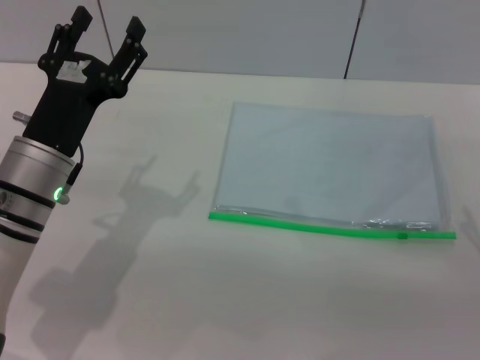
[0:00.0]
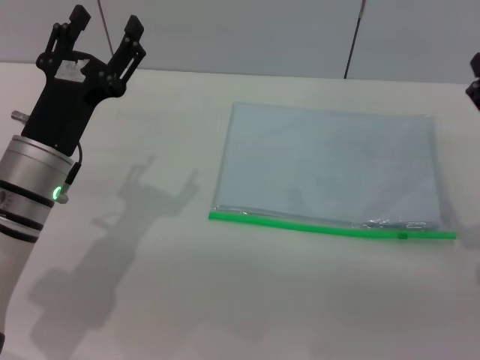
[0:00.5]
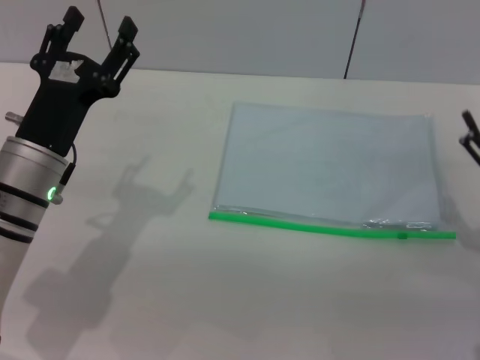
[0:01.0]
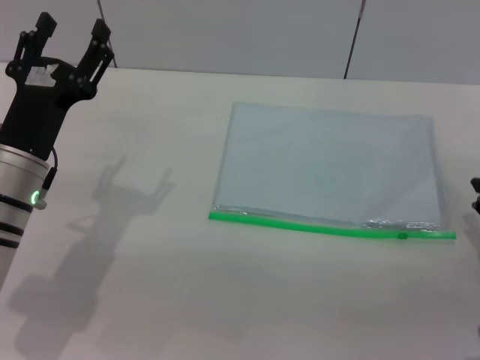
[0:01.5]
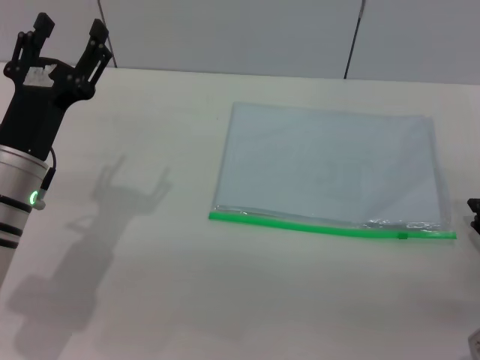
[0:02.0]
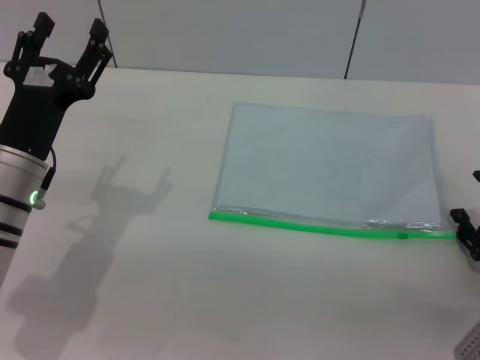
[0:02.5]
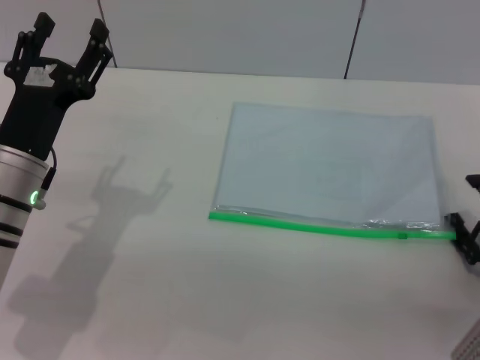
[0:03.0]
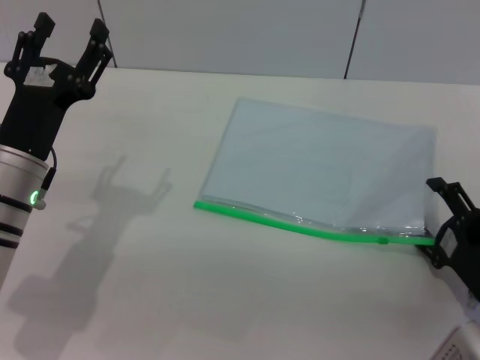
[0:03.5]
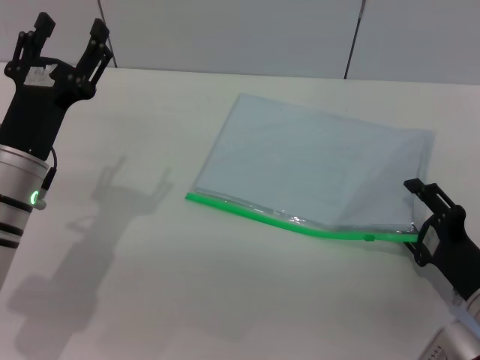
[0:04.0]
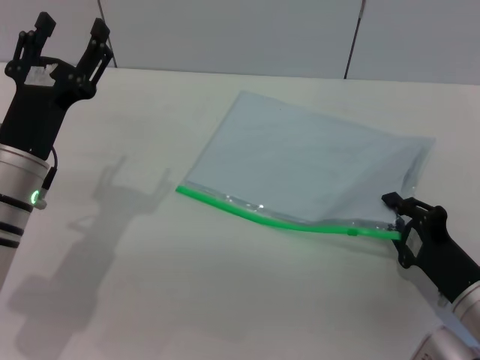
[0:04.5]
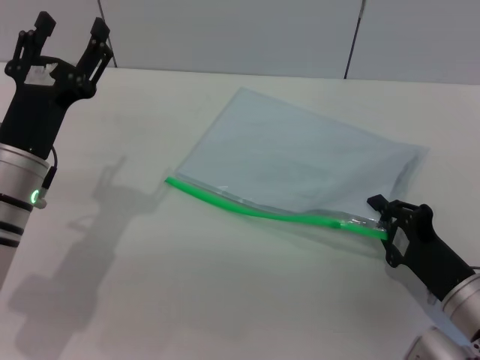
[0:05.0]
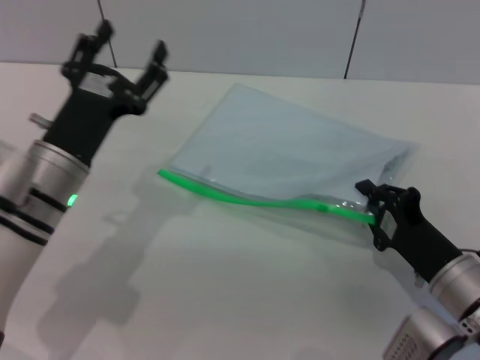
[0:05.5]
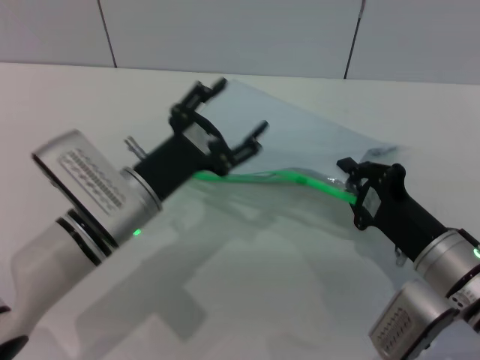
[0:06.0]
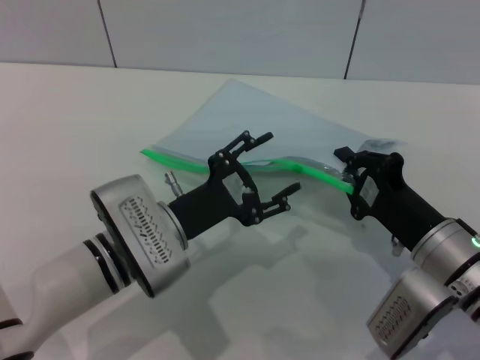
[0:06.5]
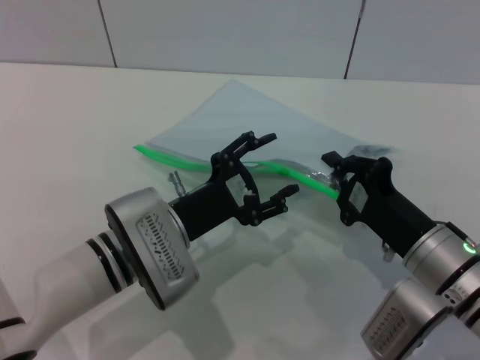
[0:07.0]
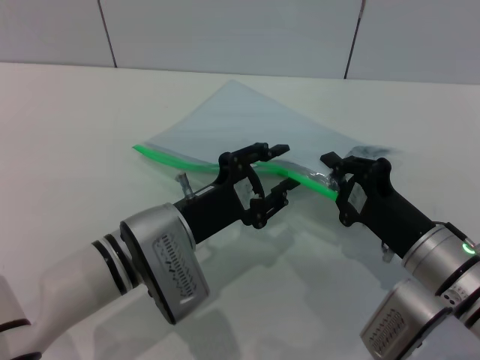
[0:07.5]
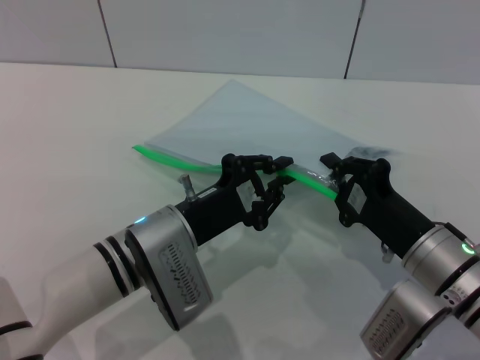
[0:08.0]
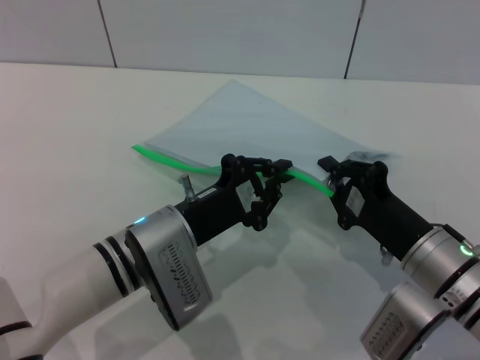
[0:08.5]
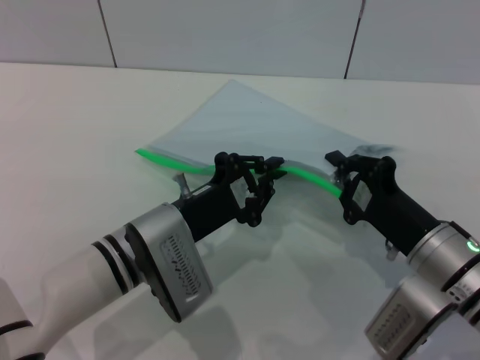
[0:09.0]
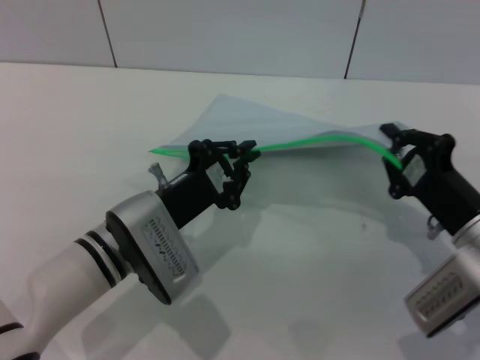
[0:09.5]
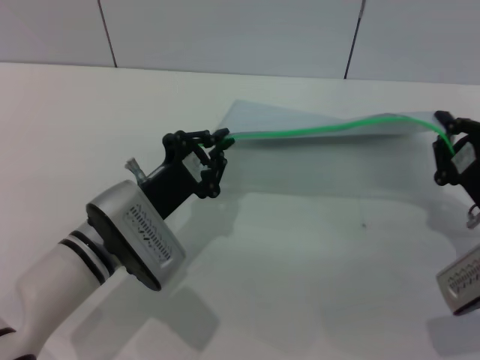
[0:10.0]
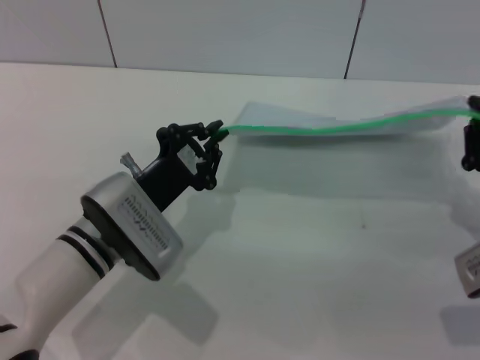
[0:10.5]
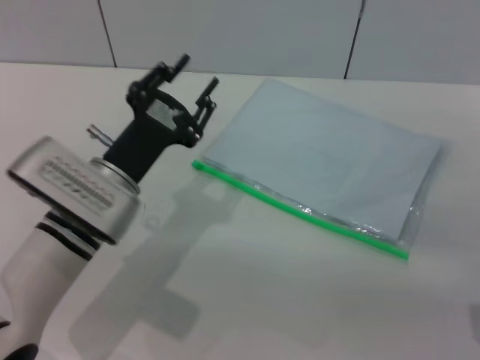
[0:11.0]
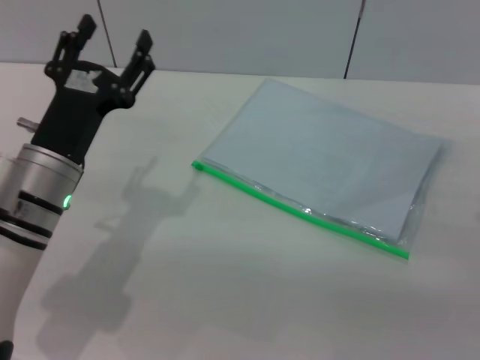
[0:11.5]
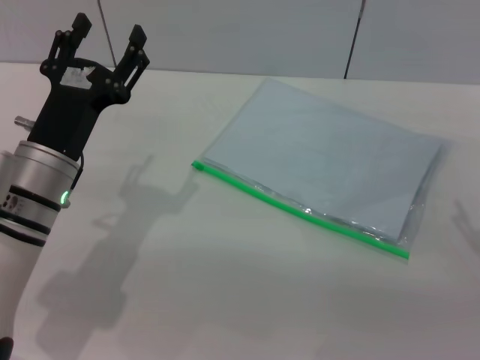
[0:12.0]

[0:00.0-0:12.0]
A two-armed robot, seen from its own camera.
Step, 0:00.0 to 0:06.0: Pick up the transparent plastic bag with the right gripper.
Step, 0:06.5 to 0:10.0: Pulling up the zipper on the transparent plastic bag with the left gripper to close it.
Step, 0:10.5 to 0:11.5: Place the transparent plastic bag.
0:02.0 to 0:04.0: The right gripper moves to the left, about 5 cm.
0:04.0 to 0:06.0: The left gripper is displaced to the right by approximately 10 cm. Meanwhile the right gripper is displaced to the left by approximately 5 cm, and closes.
0:06.0 to 0:08.0: The left gripper closes its fingers.
0:08.0 to 0:10.0: The right gripper goes roughly 10 cm to the right.
0:10.0 to 0:12.0: The right gripper opens up. The left gripper shifts about 5 cm to the left, and opens.
